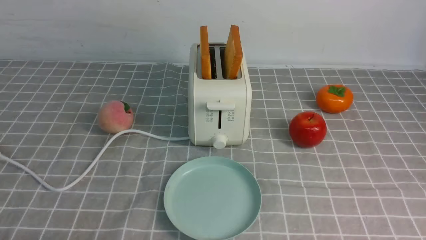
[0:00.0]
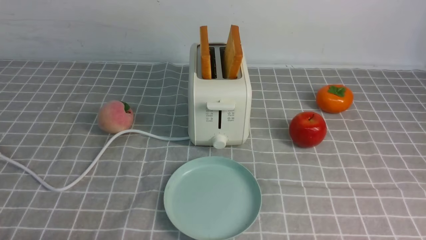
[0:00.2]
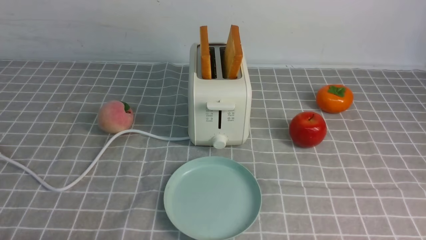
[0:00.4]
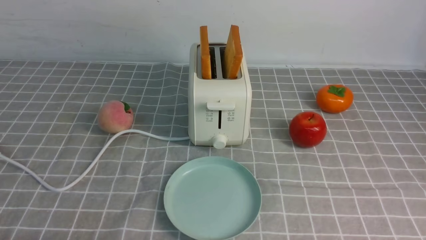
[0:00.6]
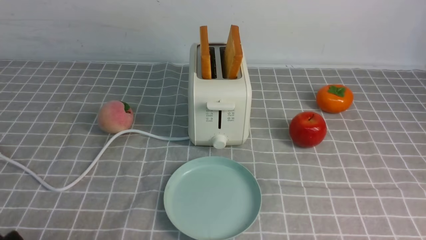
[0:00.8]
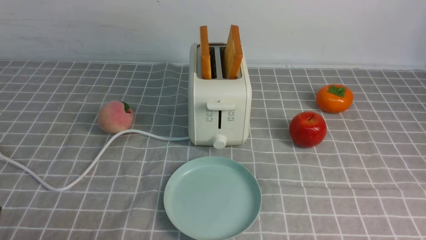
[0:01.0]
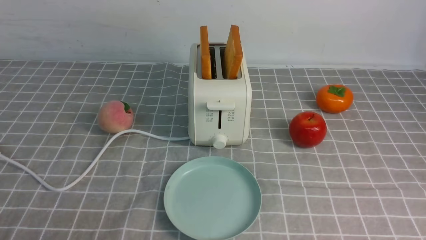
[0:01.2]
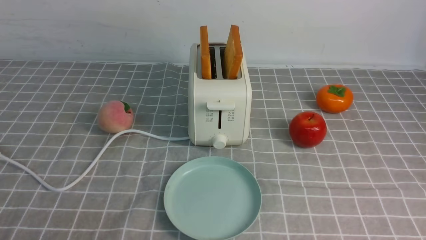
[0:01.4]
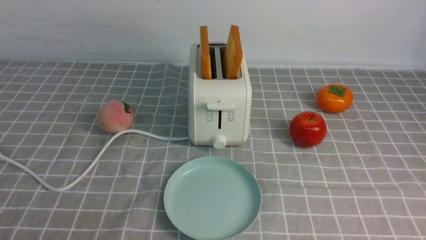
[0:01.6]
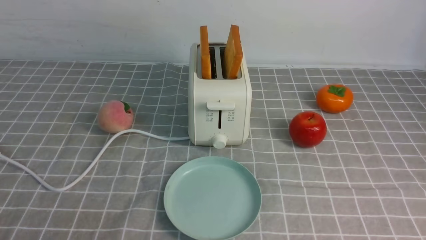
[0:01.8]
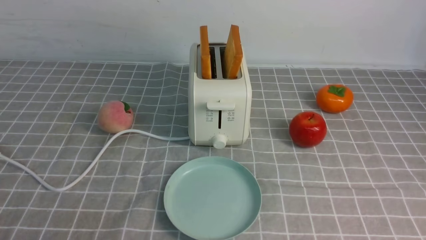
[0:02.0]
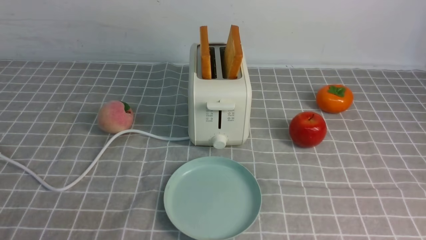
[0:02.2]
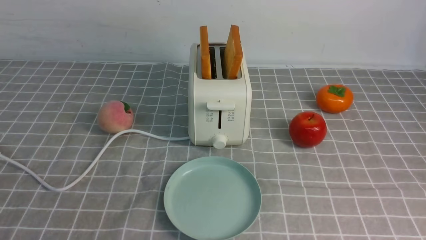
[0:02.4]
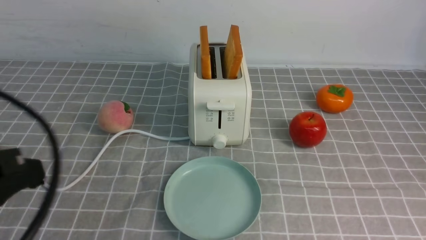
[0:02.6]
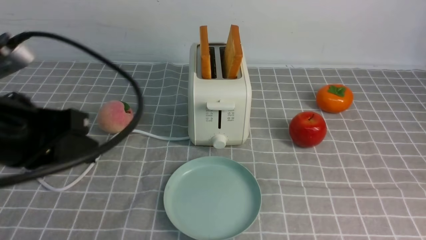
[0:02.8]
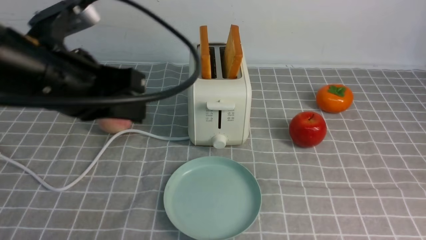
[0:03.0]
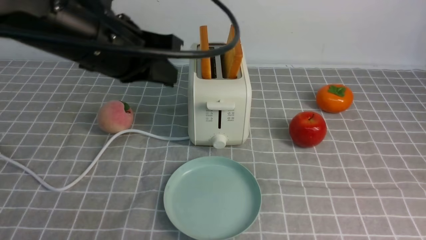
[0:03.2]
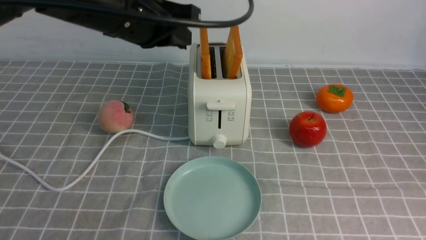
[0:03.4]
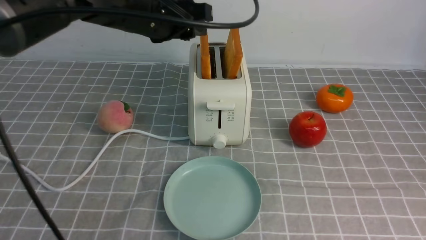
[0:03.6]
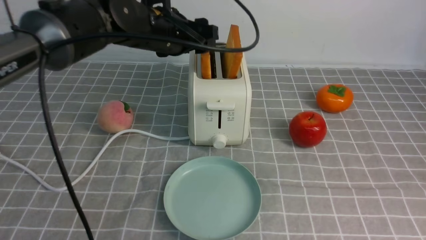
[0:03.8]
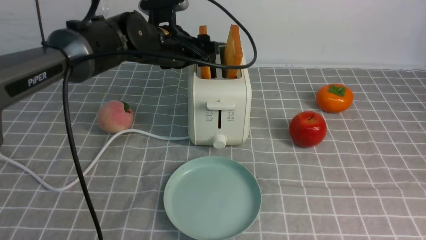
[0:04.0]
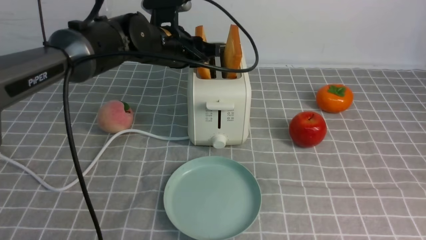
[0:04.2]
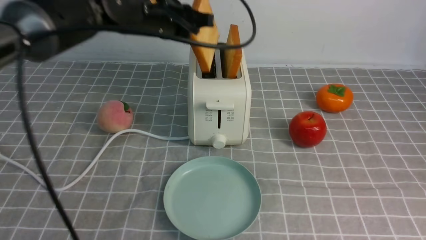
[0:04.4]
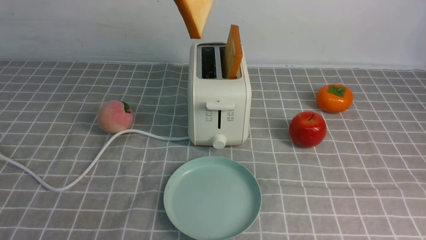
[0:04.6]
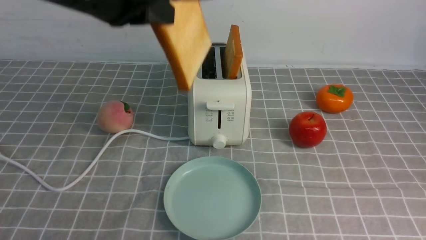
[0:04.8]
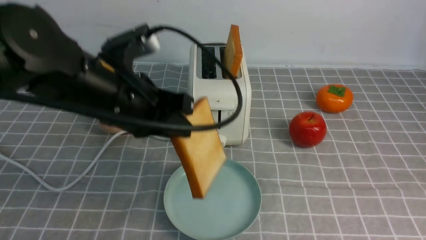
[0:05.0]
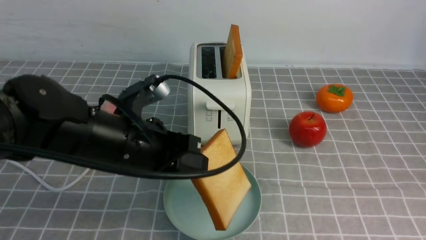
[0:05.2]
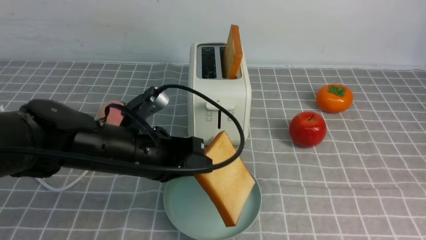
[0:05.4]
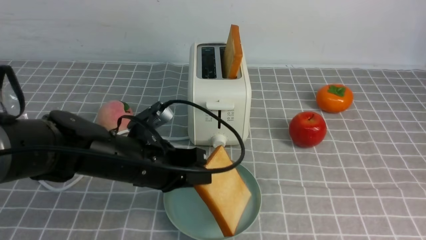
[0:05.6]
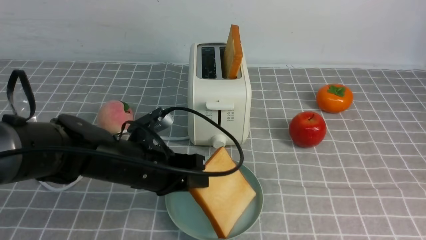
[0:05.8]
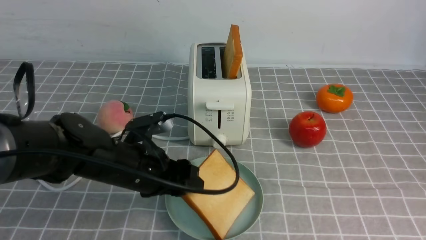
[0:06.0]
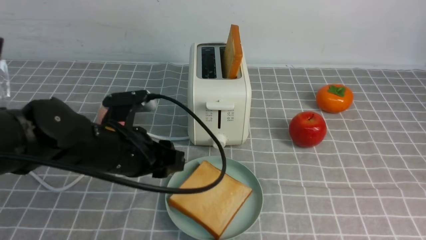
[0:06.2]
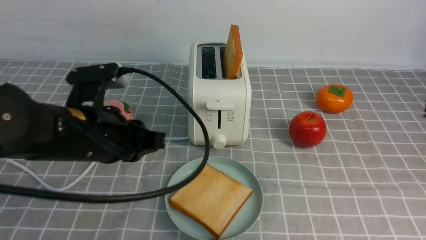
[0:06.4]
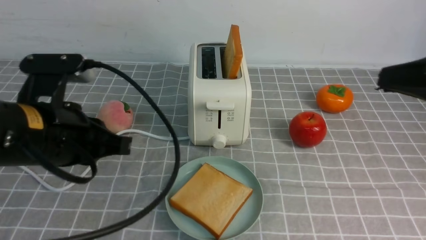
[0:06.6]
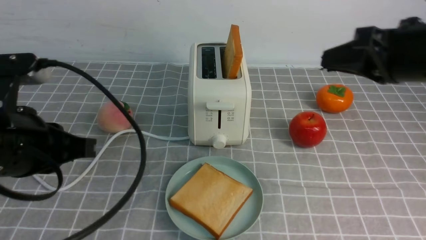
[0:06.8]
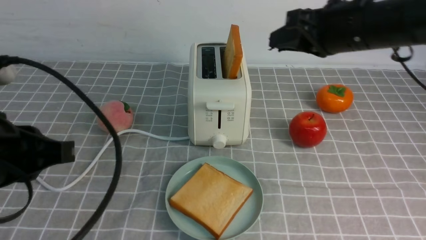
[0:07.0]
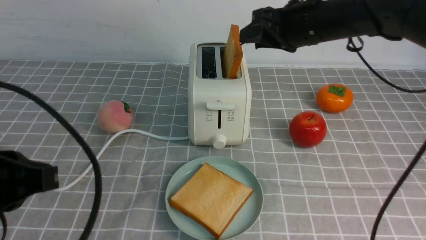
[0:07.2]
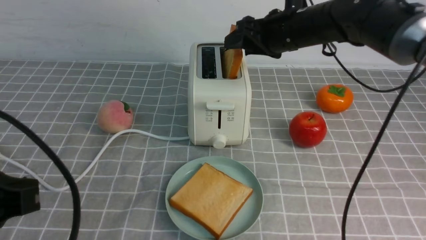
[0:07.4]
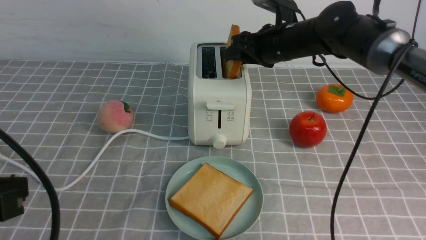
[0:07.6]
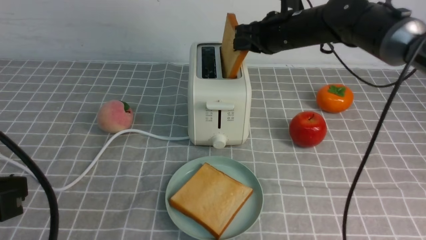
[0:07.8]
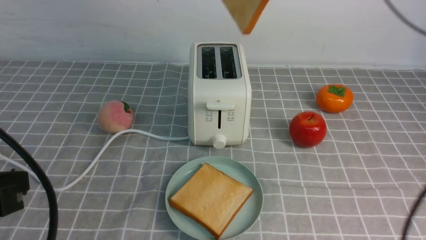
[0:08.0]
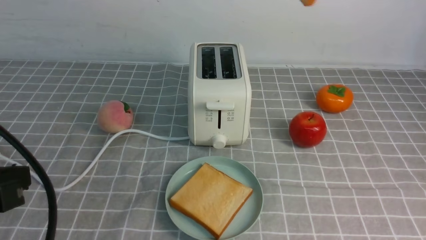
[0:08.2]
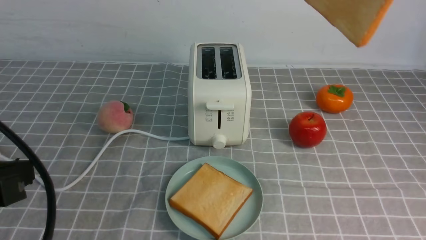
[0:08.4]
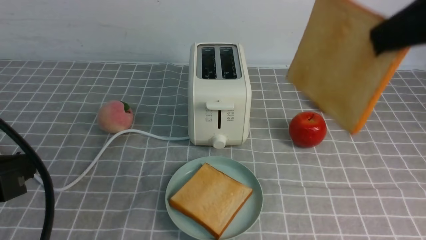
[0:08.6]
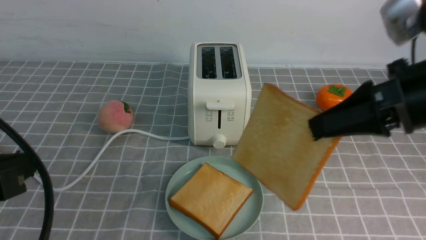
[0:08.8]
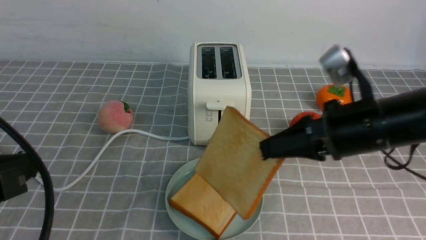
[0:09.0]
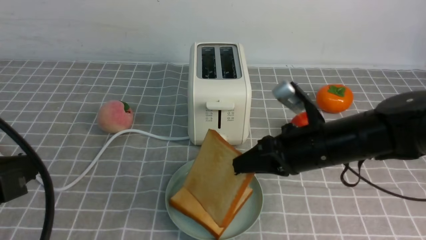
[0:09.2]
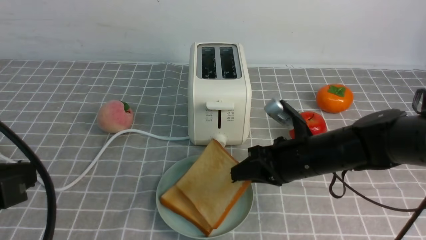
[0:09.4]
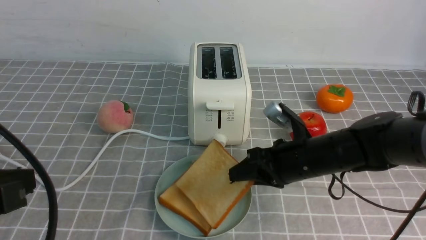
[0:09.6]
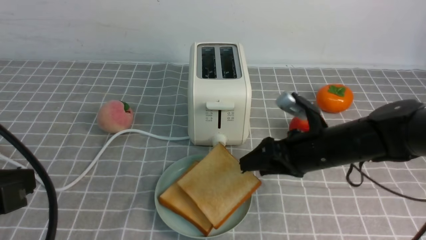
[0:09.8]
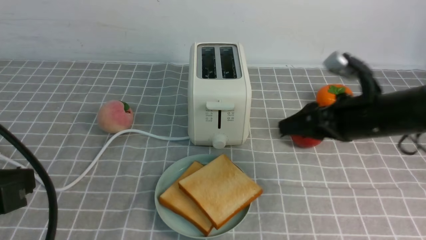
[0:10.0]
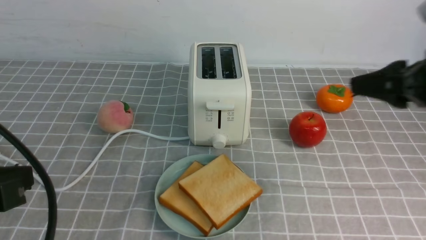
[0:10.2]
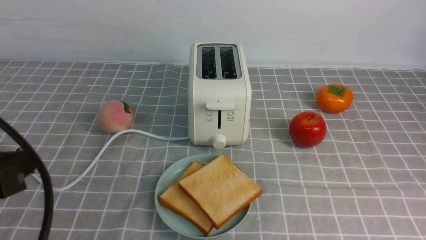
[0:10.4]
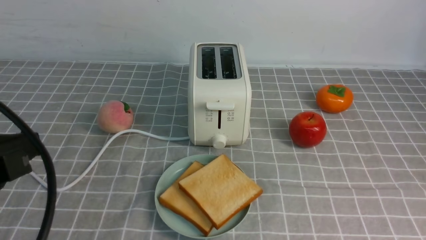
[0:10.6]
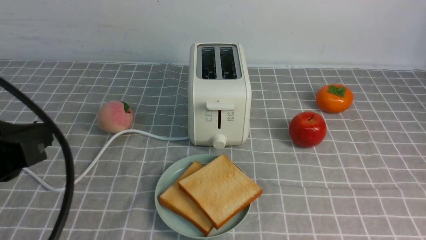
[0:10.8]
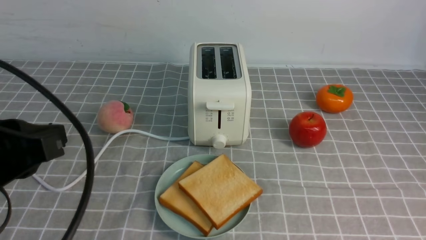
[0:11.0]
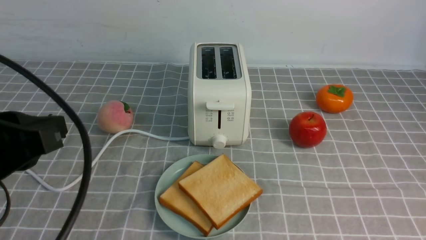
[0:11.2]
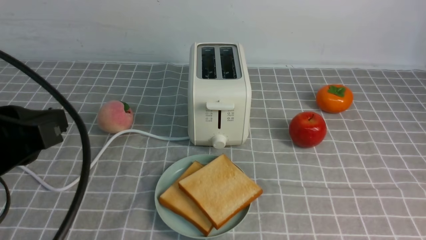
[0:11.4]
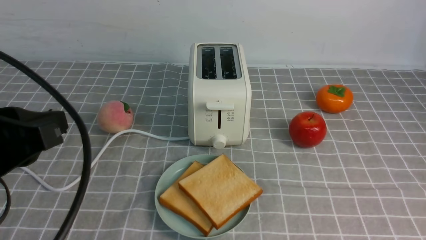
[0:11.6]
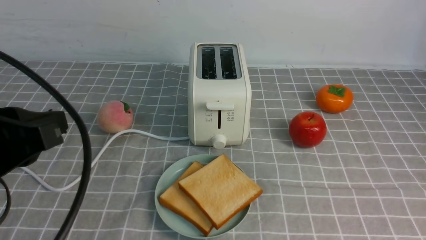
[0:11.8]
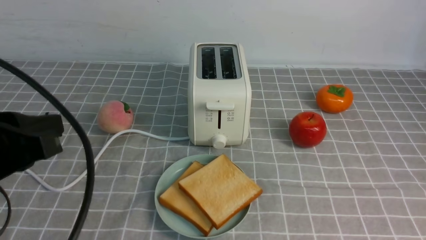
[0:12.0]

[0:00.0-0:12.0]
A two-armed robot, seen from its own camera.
Task of the whole recording: take toasted bread from bread machine on grey coffee table place on plate.
Step, 0:00.0 to 0:04.4: use the left arm to take out a slice of bread.
Step, 0:04.6 to 0:06.2: use the left arm to put a slice of bread into the empty plate.
Step, 0:06.4 to 0:08.0: use the right arm to take out a slice of bread.
Step, 0:08.2 to 0:10.0: use the right arm to put a slice of bread into the plate.
0:01.6 to 0:03.0: The left gripper is displaced forward, upward and to the right by about 25 cm, and closes up, while the right gripper heads upward, covering approximately 15 cm, and closes.
0:03.0 to 0:04.4: The left gripper shifts some 15 cm forward and to the right, and opens, then closes again.
0:04.4 to 0:06.0: The left gripper goes approximately 20 cm downward and backward, and opens.
0:06.0 to 0:07.6: The right gripper moves forward and to the left, roughly 40 cm, and opens its fingers. Meanwhile the left gripper is displaced backward, upward and to the left by roughly 25 cm, and closes up.
0:07.6 to 0:09.0: The right gripper goes approximately 20 cm backward, and closes.
0:09.0 to 0:10.4: The right gripper is displaced backward, upward and to the right by some 20 cm, and opens, then closes again.

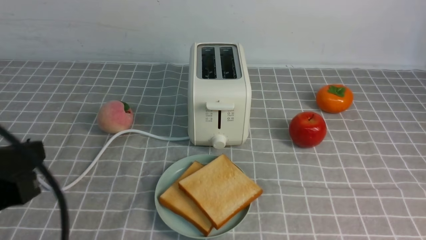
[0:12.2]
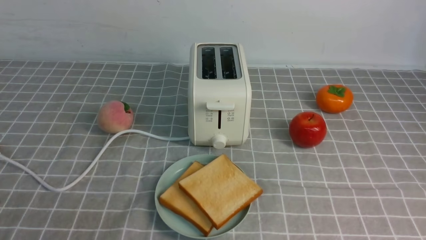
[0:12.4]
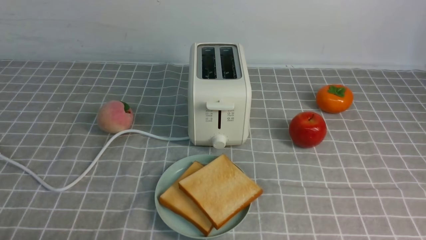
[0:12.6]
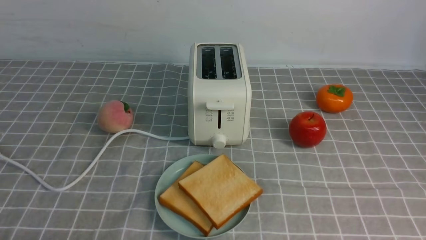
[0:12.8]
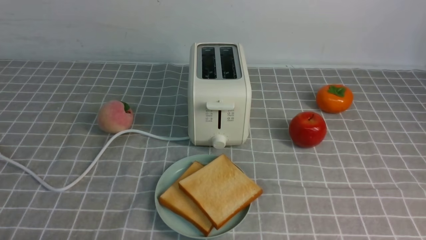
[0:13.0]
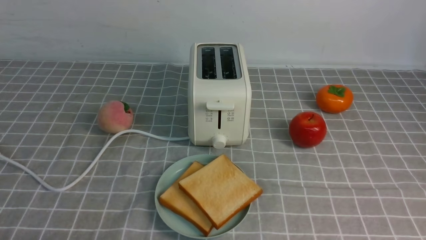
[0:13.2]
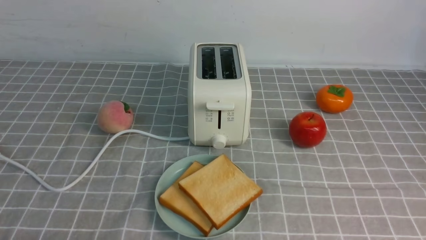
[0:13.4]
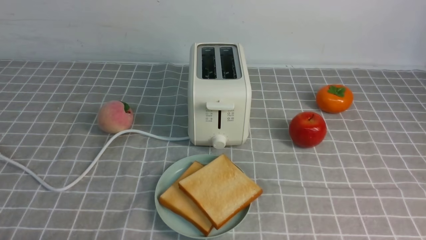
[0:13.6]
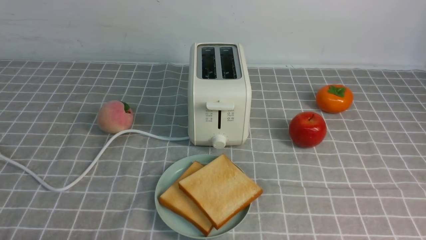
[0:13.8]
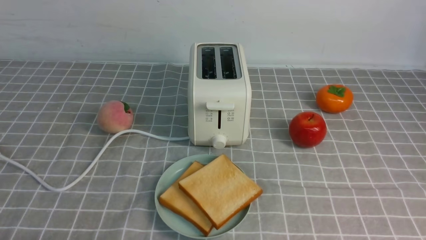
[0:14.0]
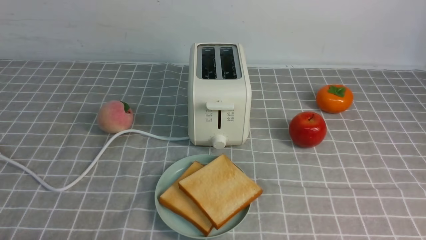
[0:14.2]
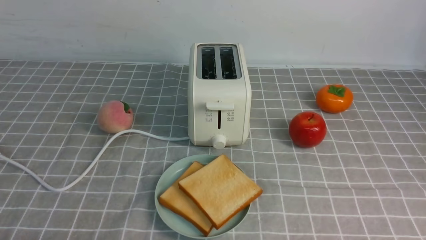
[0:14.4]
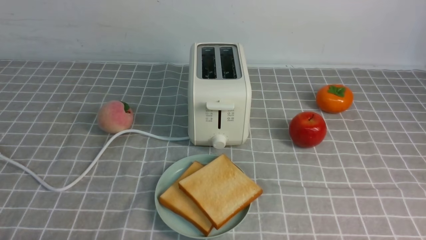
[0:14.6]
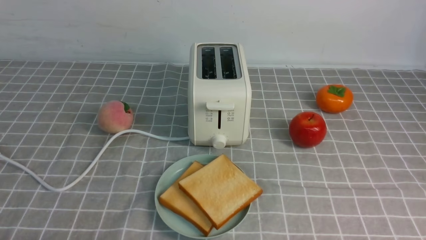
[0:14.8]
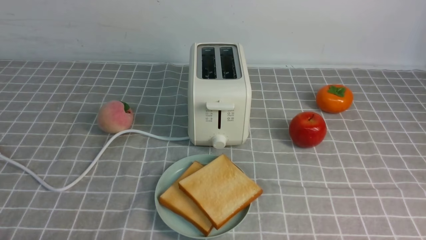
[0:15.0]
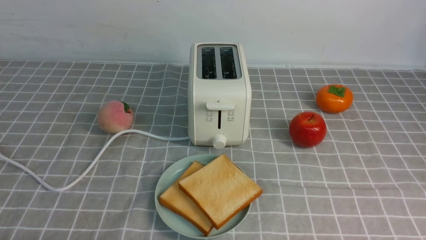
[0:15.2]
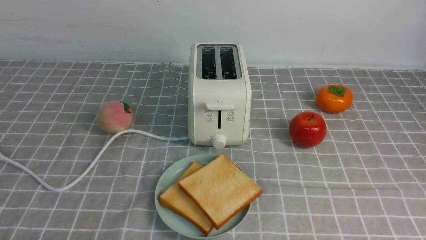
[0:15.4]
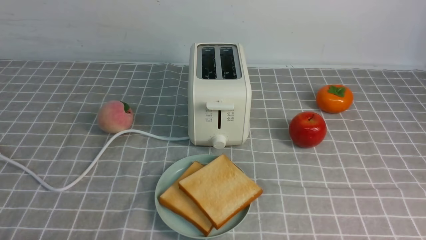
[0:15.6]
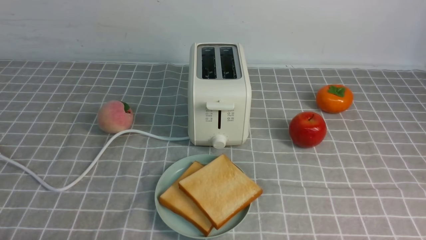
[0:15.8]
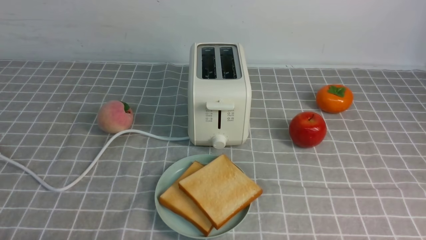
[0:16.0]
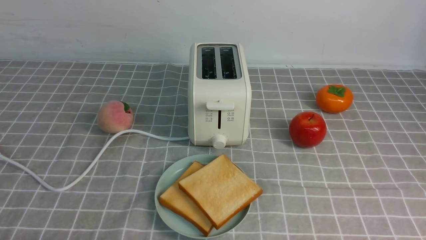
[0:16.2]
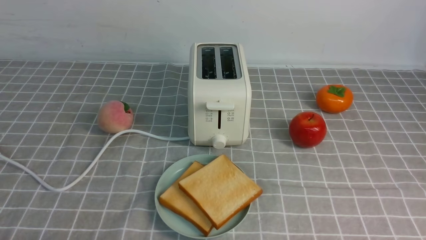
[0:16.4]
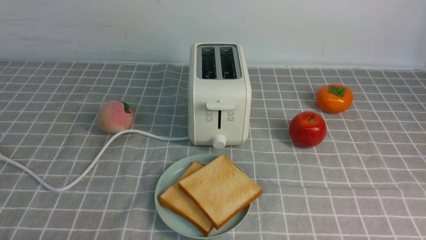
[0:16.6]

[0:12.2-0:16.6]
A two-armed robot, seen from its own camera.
Task of the whole recording: take toasted bread from bread machine on grey coffee table place on plate.
0:12.2 to 0:13.6: The left gripper goes roughly 15 cm downward.
0:15.2 to 0:16.6: The two grippers keep their place.
